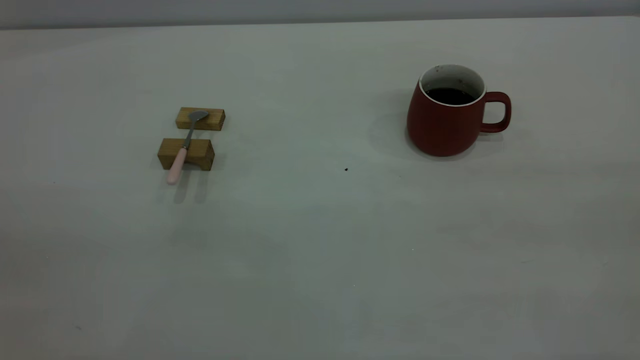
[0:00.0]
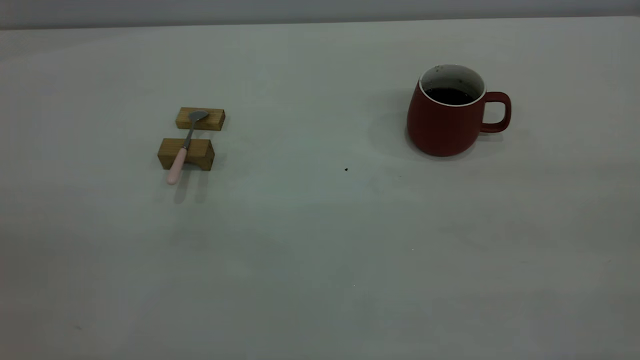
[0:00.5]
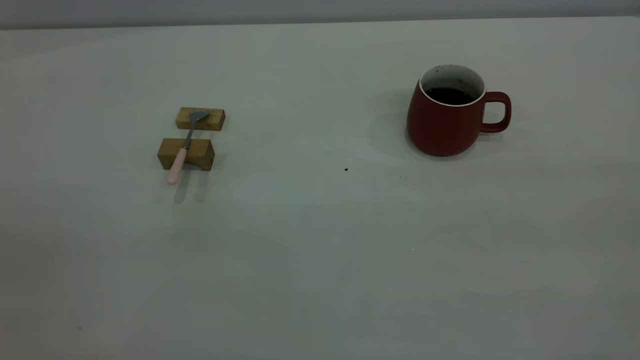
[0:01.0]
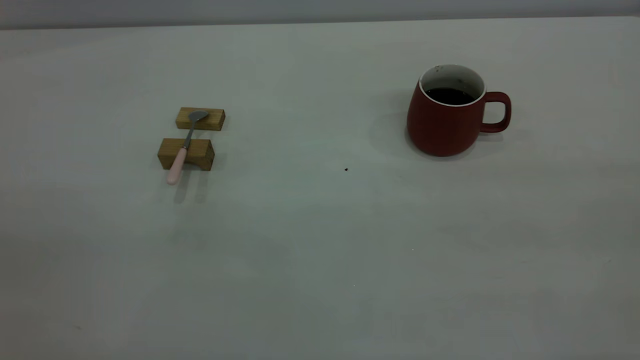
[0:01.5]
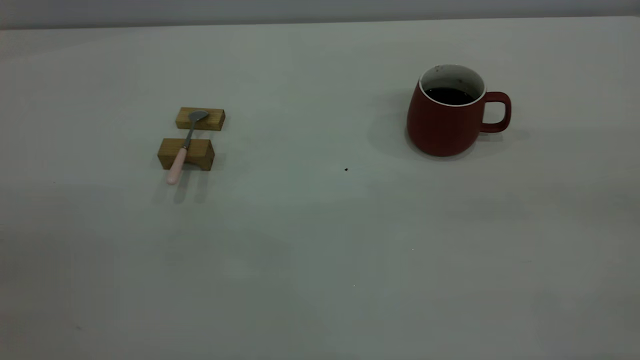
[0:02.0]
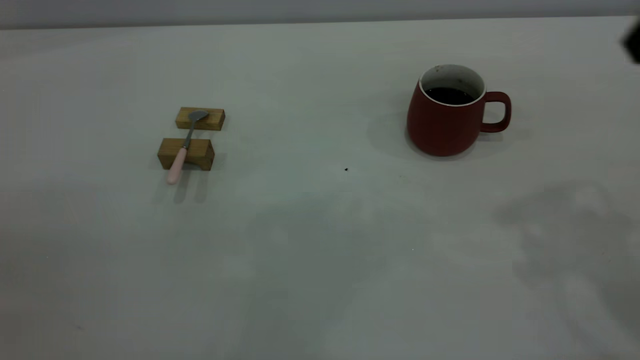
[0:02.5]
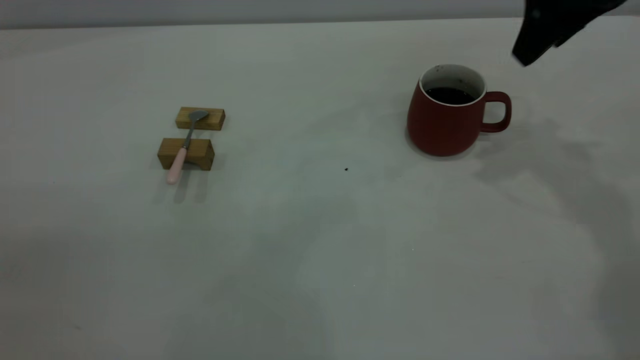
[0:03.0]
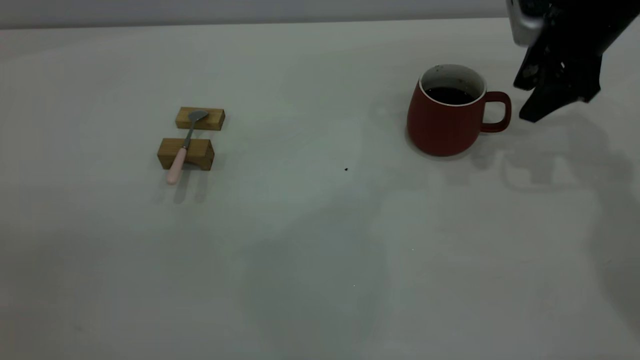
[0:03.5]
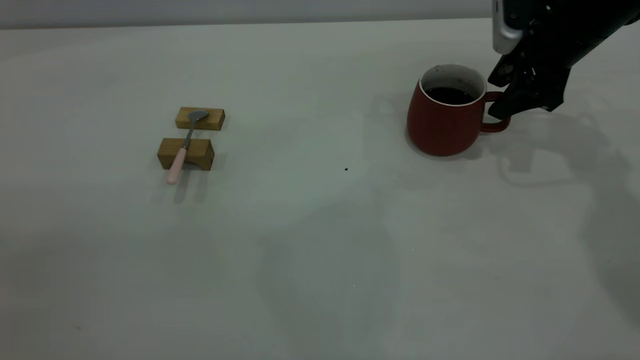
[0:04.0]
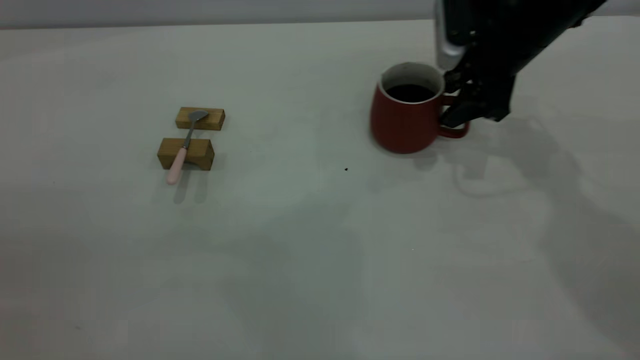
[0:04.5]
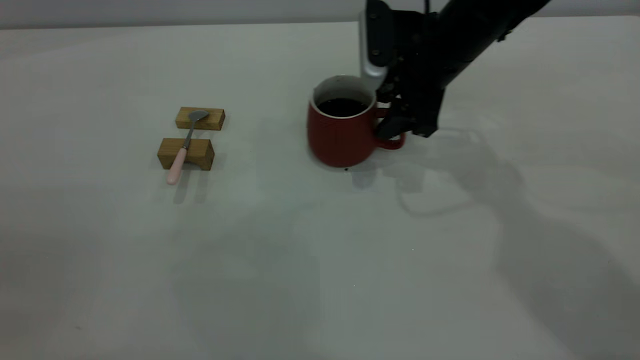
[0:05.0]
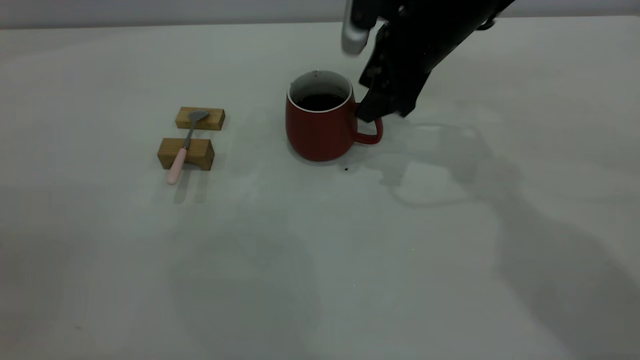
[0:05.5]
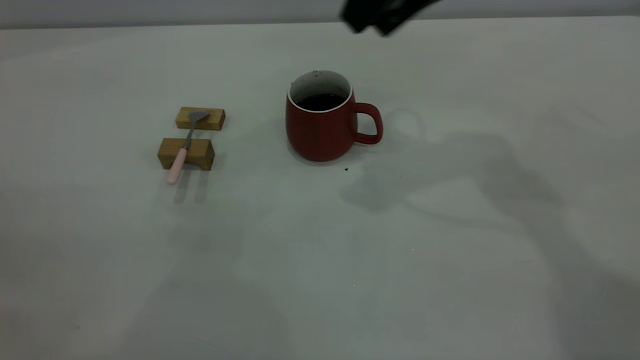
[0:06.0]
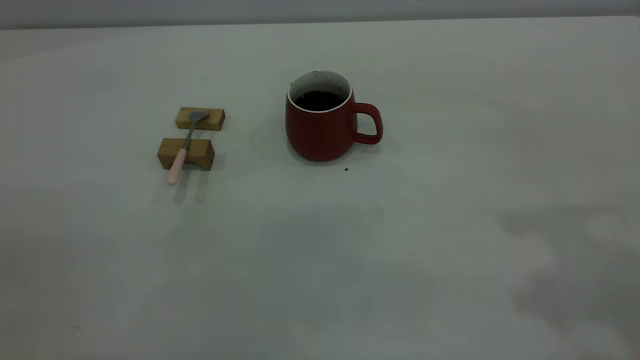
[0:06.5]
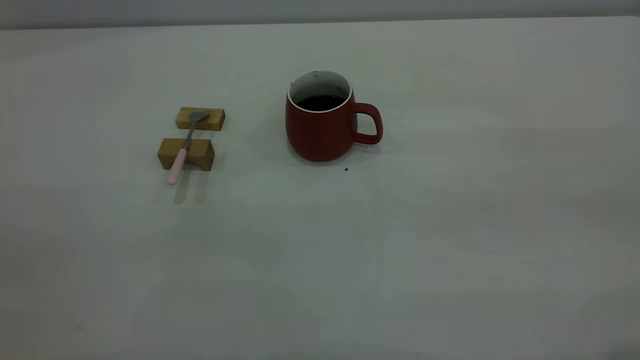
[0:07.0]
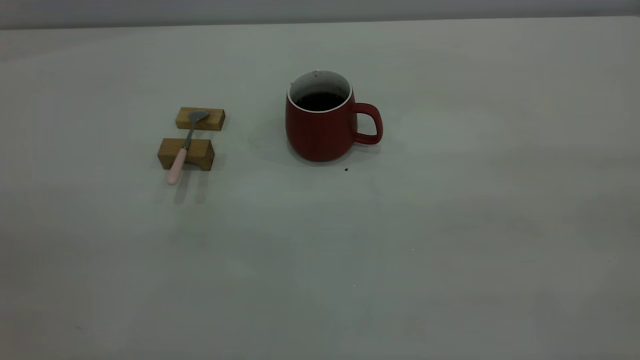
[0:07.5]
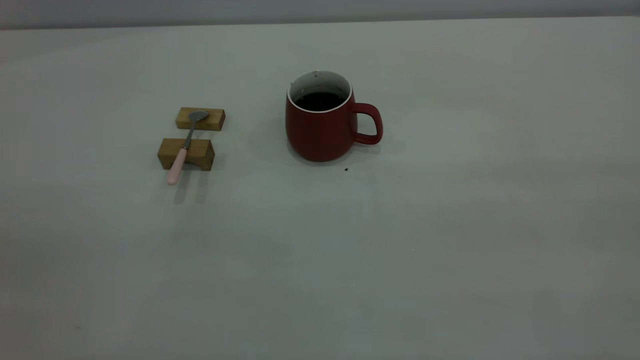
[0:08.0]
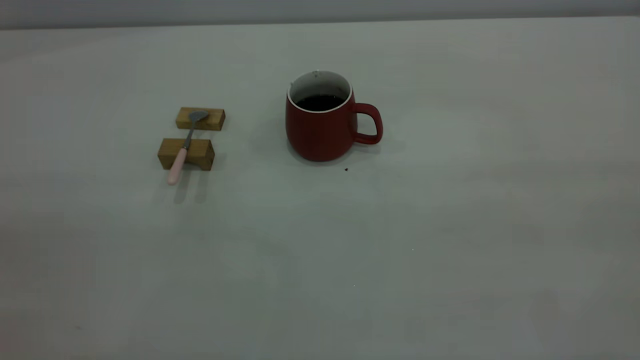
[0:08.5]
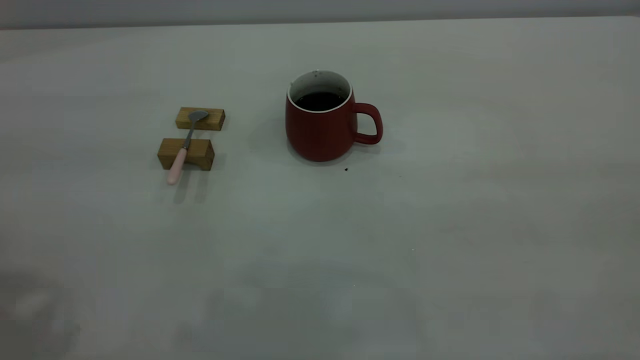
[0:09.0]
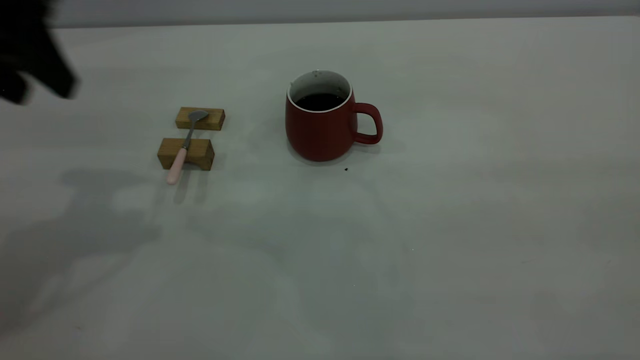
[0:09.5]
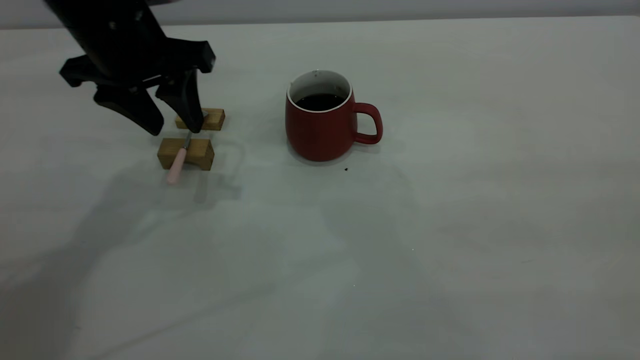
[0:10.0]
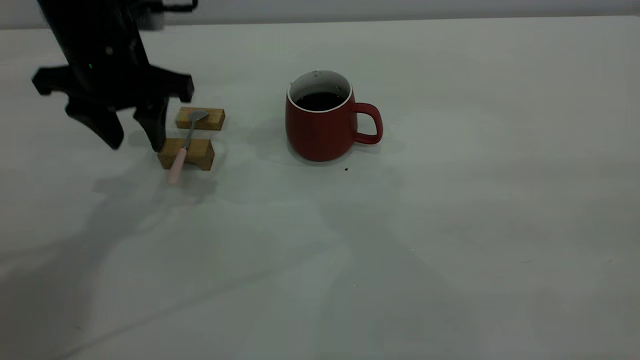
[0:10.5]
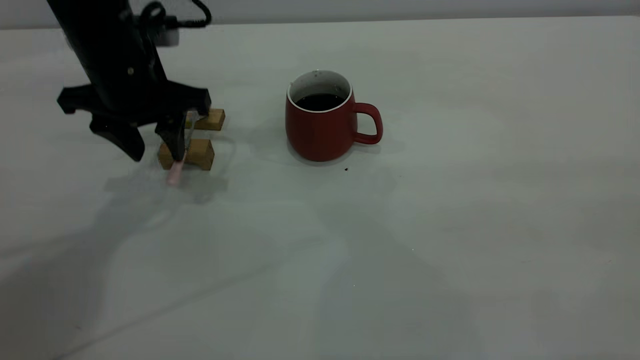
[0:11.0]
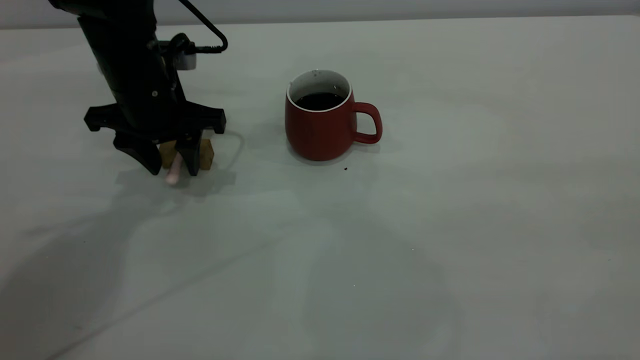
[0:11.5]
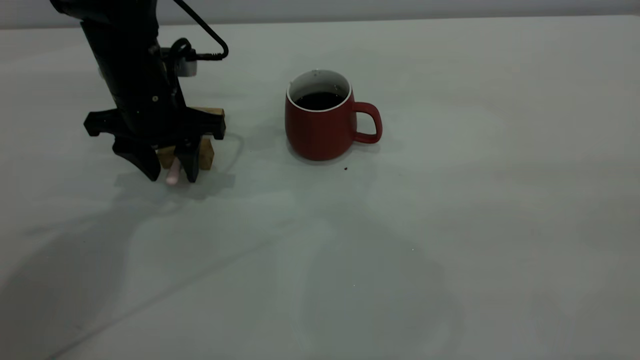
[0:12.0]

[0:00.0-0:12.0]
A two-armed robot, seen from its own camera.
Step, 0:00.0 to 0:05.5: Move the cup with coffee to the center of view.
0:02.0 to 0:04.0: The right gripper goes approximately 40 cm forward and downward.
0:04.0 to 0:06.0: The right gripper travels upward, to the left and backward by roughly 20 cm.
0:06.0 to 0:08.0: The right gripper shifts roughly 40 cm backward and to the right.
0:08.0 to 0:10.0: The left gripper is displaced forward and downward by roughly 40 cm.
0:10.0 to 0:12.0: The left gripper goes approximately 10 cm downward.

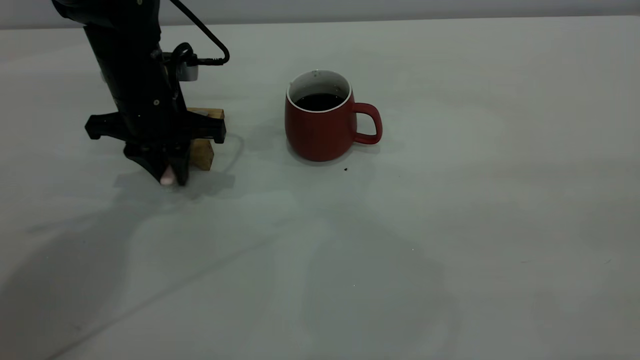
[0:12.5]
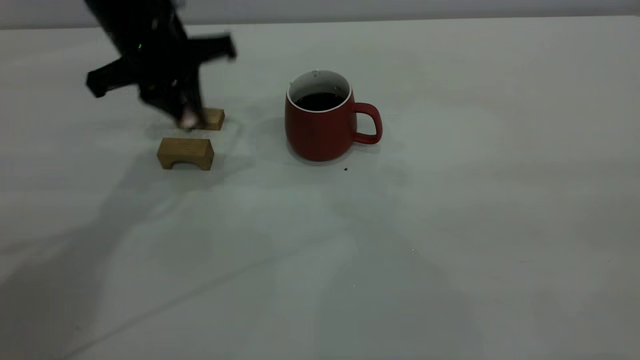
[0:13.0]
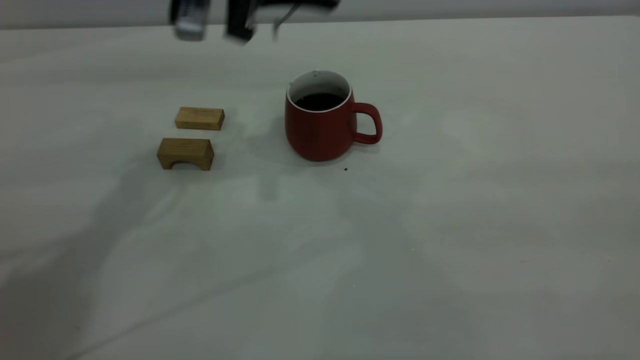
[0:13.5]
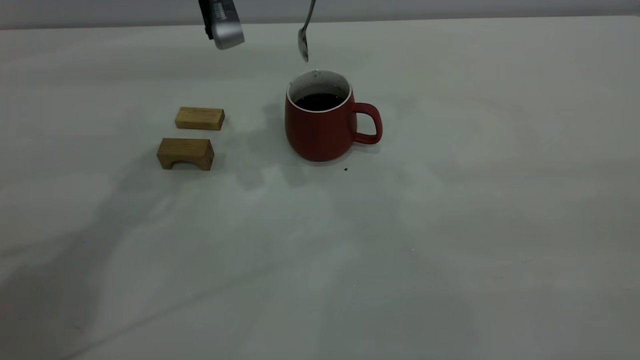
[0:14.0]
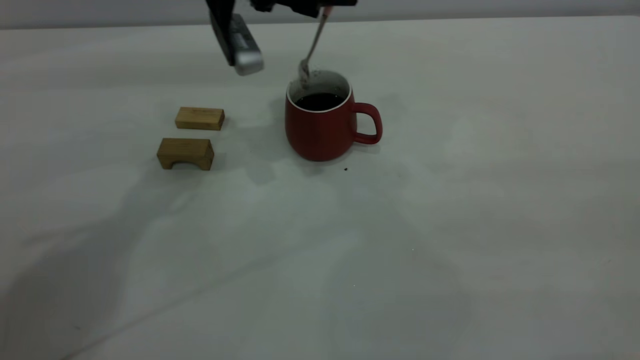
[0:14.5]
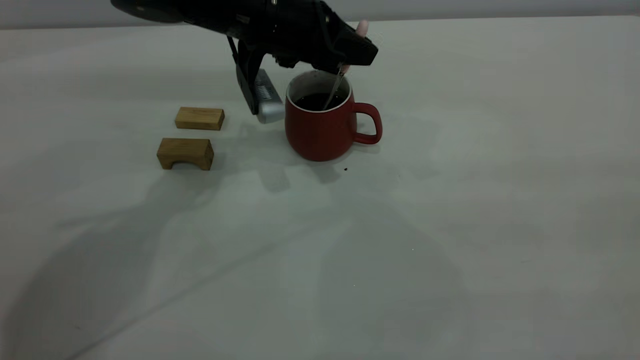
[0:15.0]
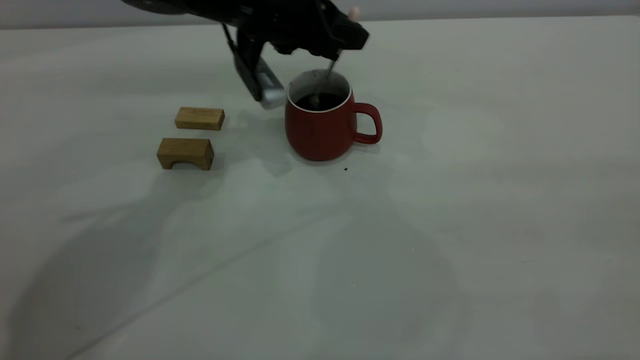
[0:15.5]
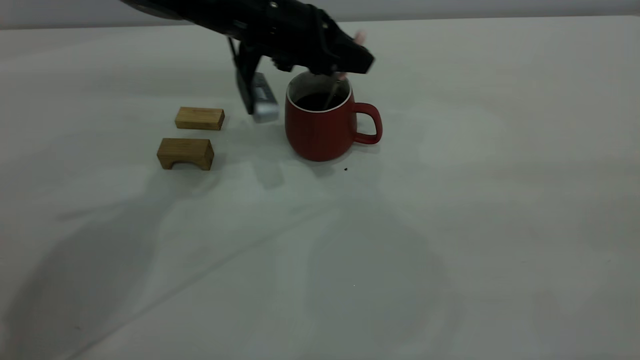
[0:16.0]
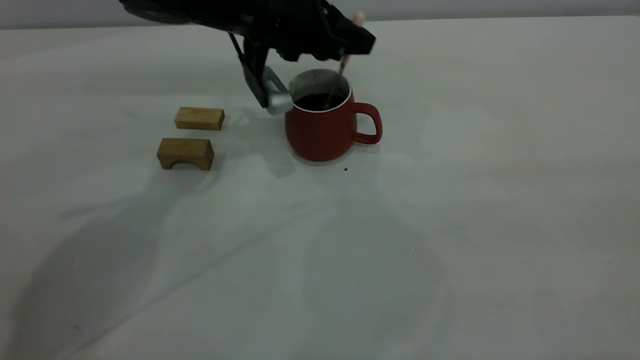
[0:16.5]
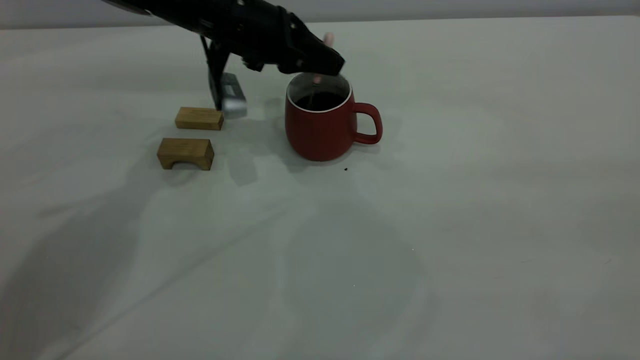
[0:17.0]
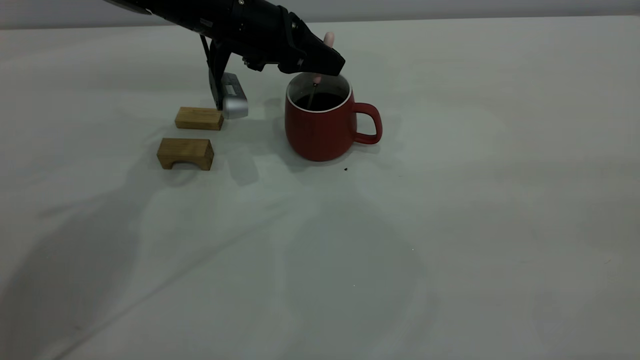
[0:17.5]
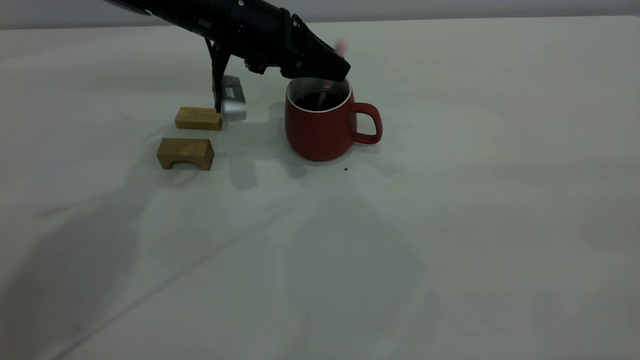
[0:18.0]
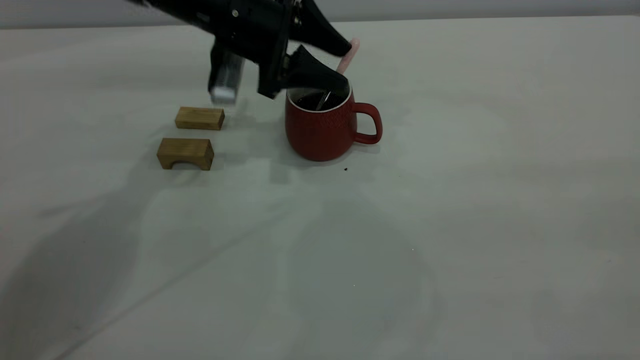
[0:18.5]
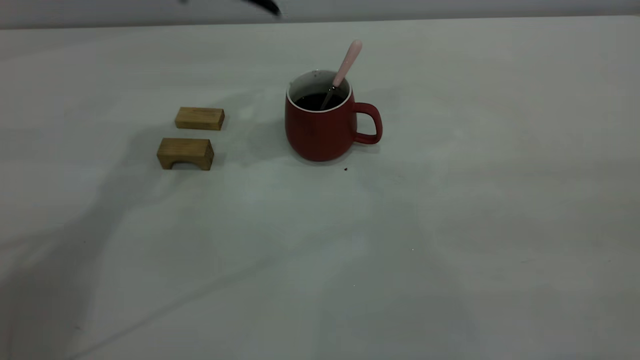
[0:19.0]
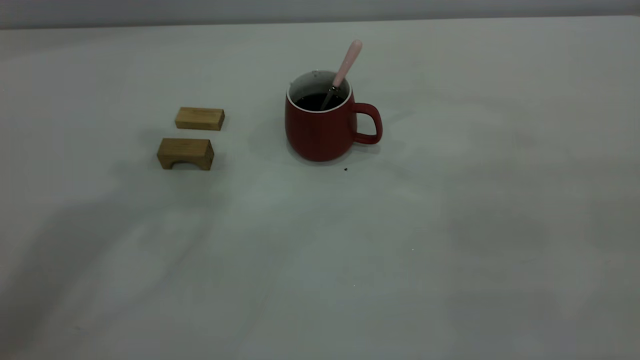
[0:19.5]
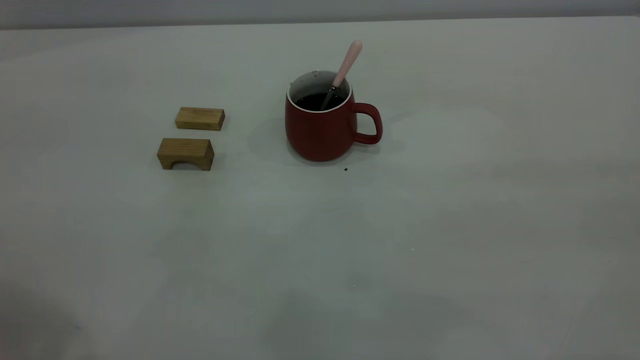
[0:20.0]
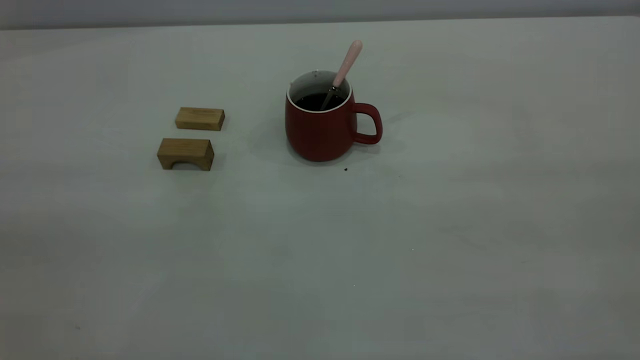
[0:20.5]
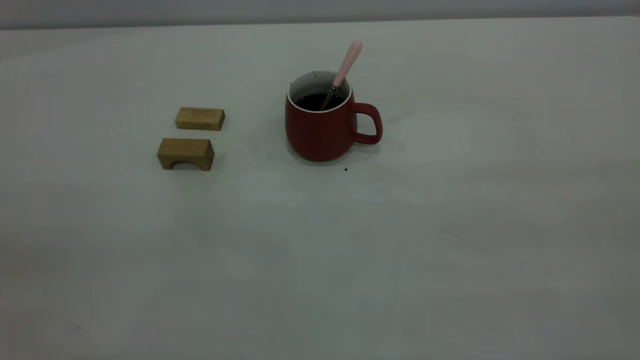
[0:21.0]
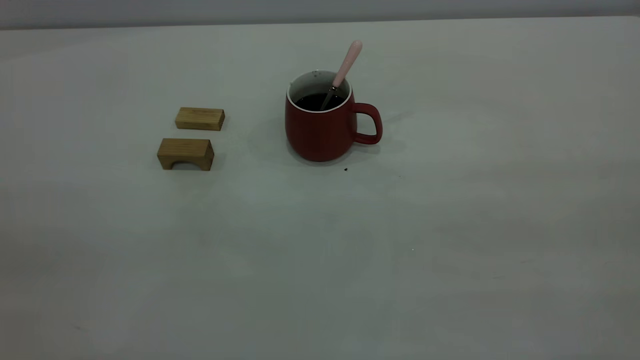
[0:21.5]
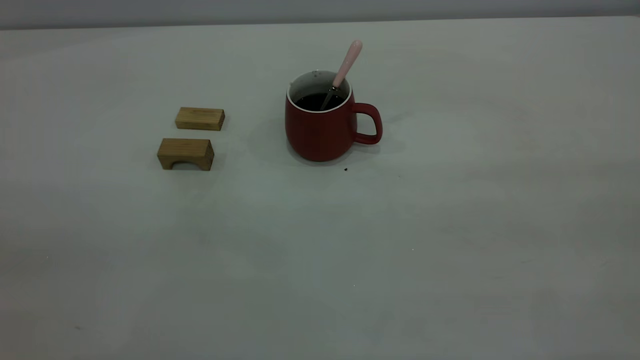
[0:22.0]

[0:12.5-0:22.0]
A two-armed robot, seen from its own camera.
Step, 0:13.0 to 0:18.5: Stir the coffee in the cup.
0:12.5 to 0:14.5: The left gripper is displaced upward and to the right by about 15 cm.
0:14.5 to 0:16.5: The left gripper heads downward, covering approximately 5 cm.
0:16.5 to 0:18.0: The left gripper opens.
0:18.0 to 0:20.0: The left gripper shifts some 50 cm backward, upward and to the left, and opens.
